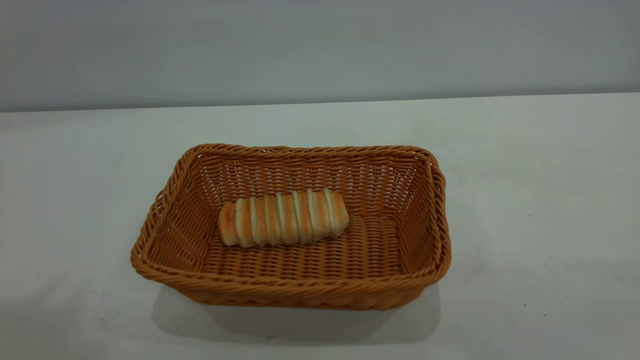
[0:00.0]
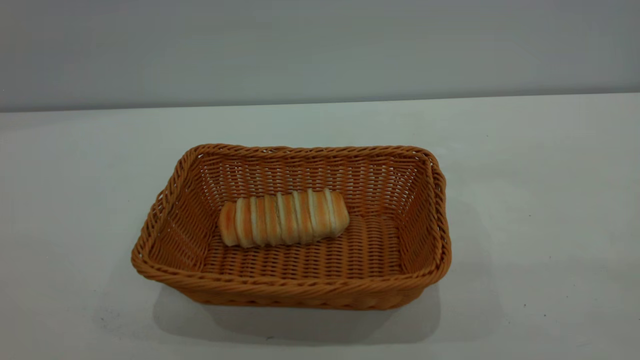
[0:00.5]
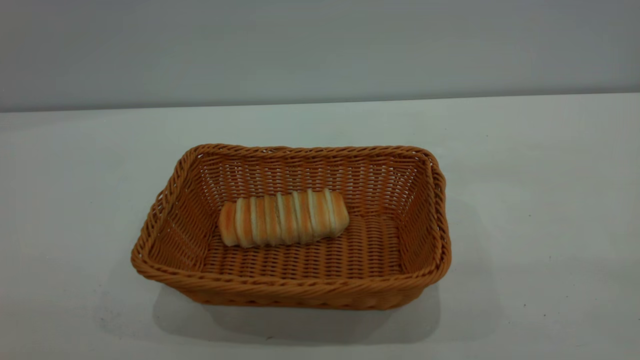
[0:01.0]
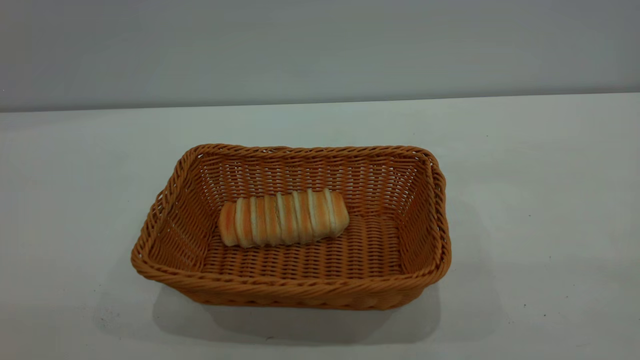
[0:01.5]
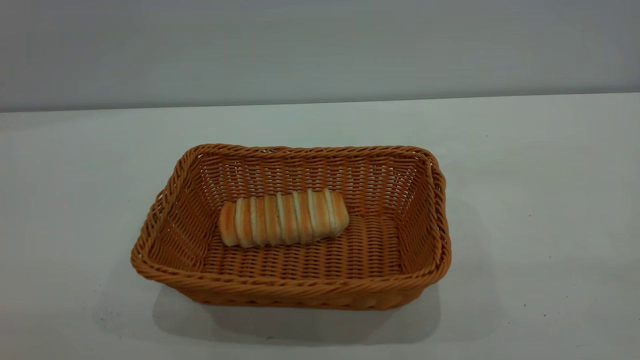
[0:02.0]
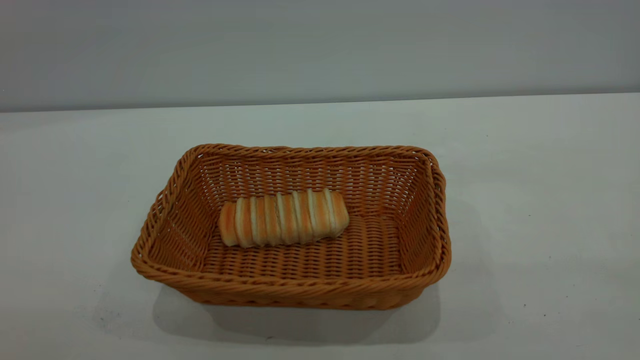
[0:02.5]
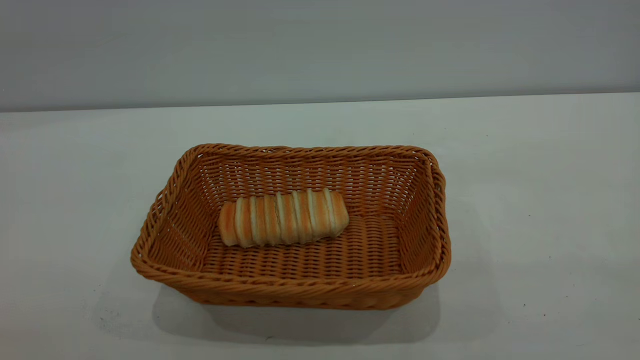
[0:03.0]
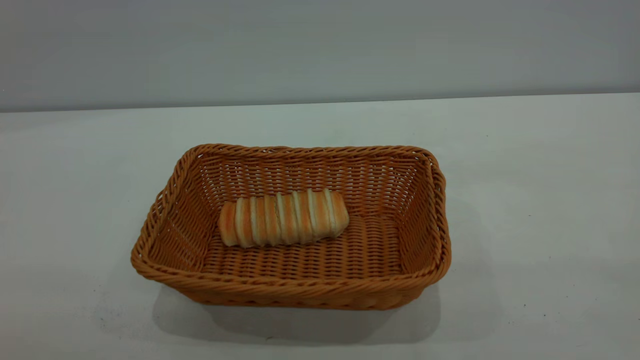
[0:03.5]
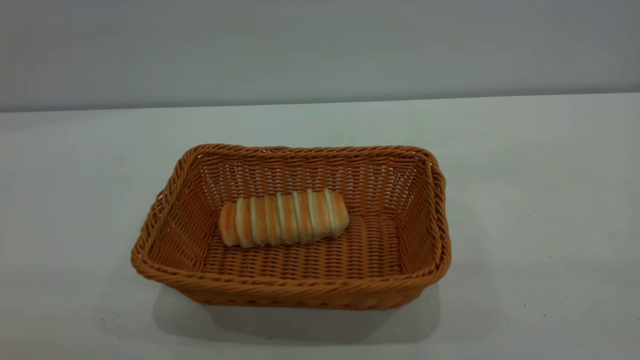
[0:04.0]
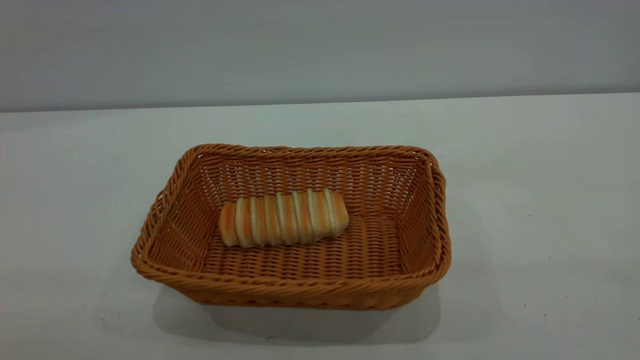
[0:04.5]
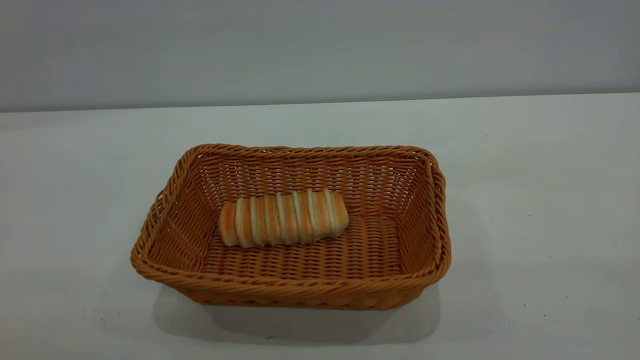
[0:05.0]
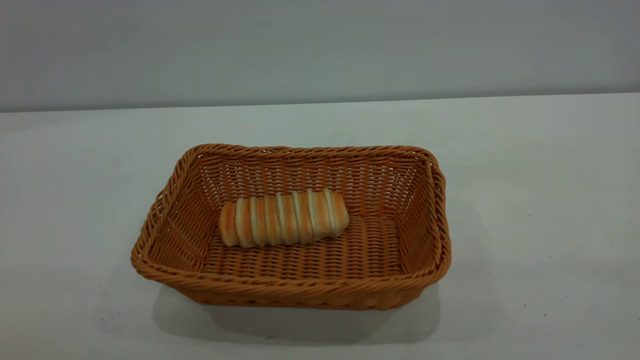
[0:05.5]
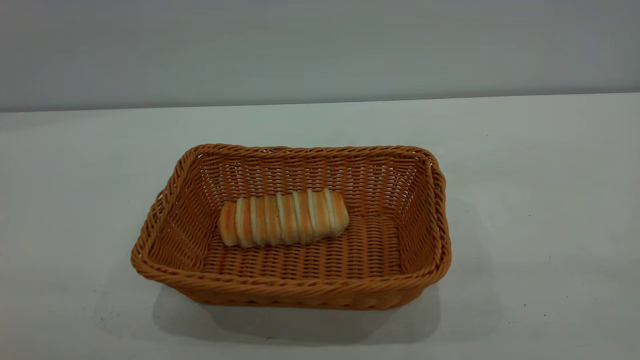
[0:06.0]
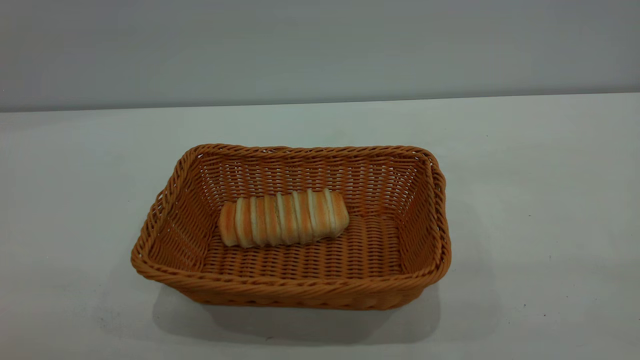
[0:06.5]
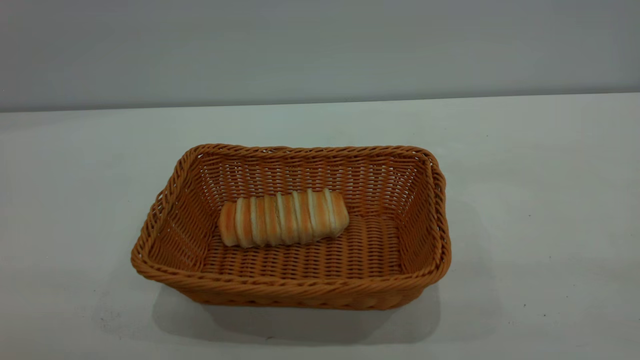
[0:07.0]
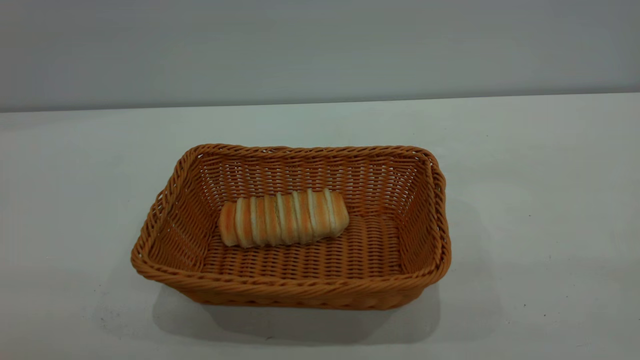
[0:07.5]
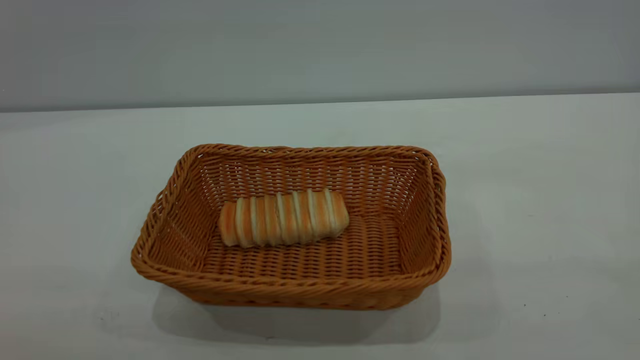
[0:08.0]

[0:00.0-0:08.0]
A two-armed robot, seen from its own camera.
Task of the whole recording: One hand grasps the yellow basket and places it in the middle of the table, while the other hand picks up the long bread and puts it into the yellow basket.
0:06.0 to 0:08.0: The two grippers keep their place.
